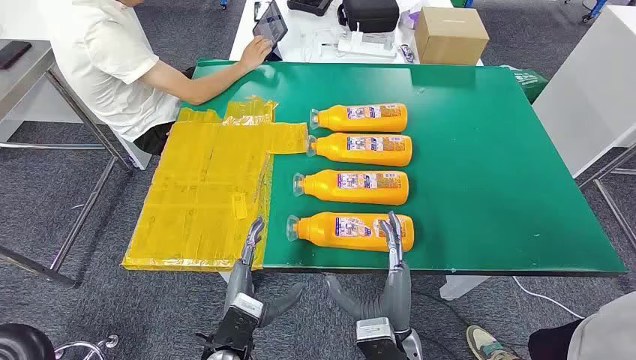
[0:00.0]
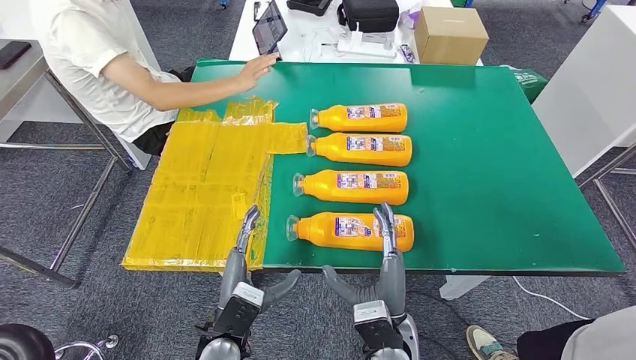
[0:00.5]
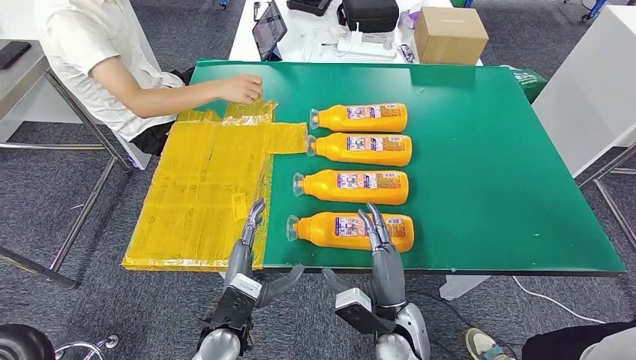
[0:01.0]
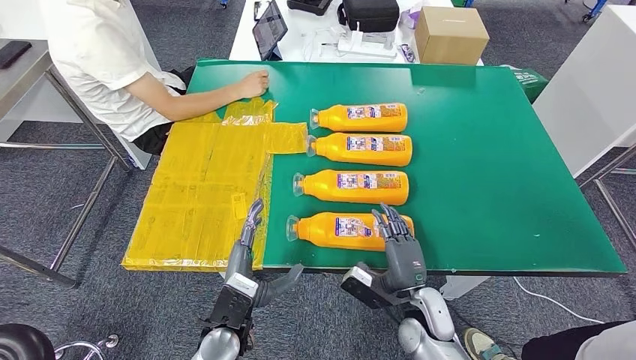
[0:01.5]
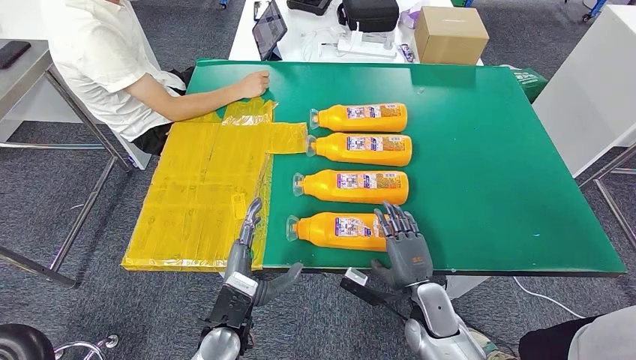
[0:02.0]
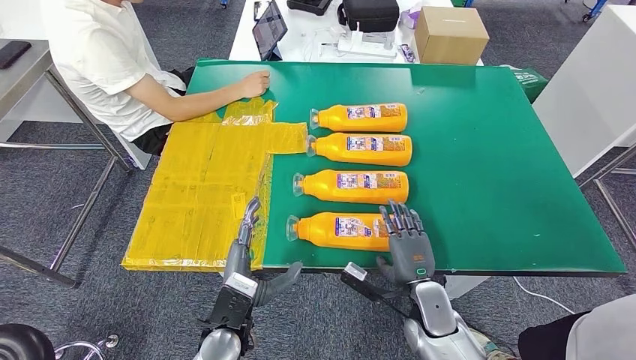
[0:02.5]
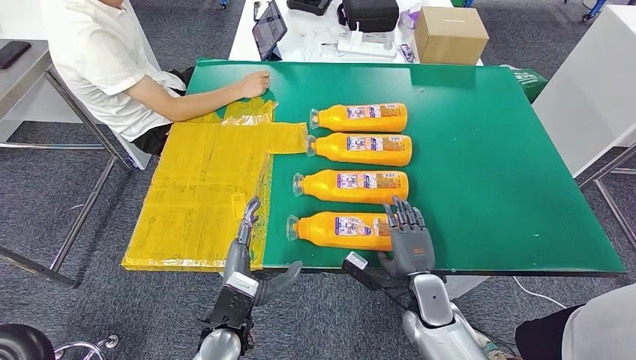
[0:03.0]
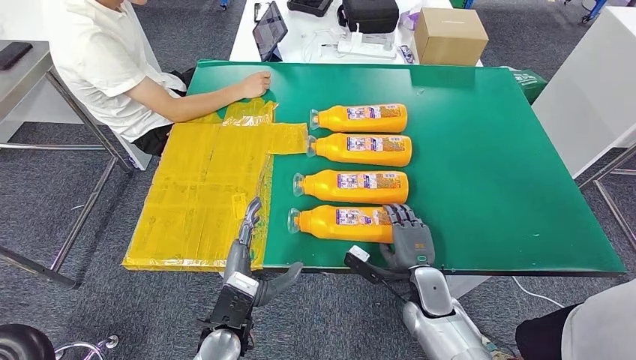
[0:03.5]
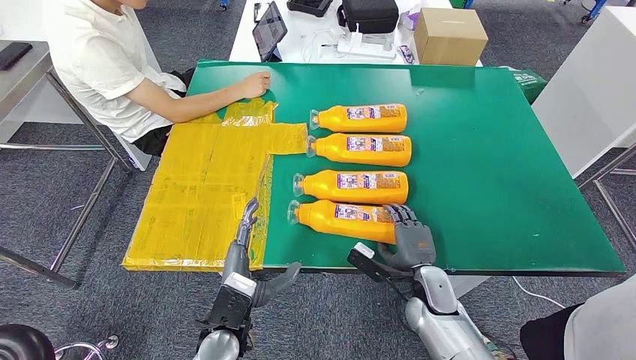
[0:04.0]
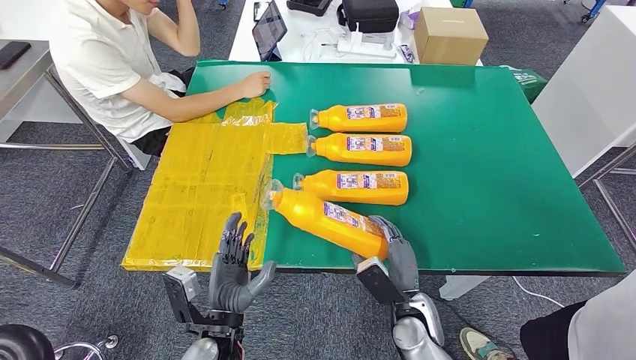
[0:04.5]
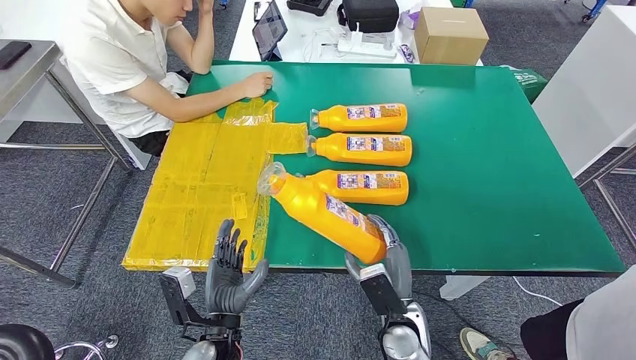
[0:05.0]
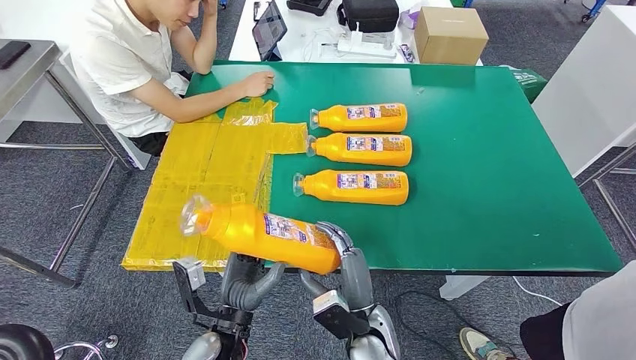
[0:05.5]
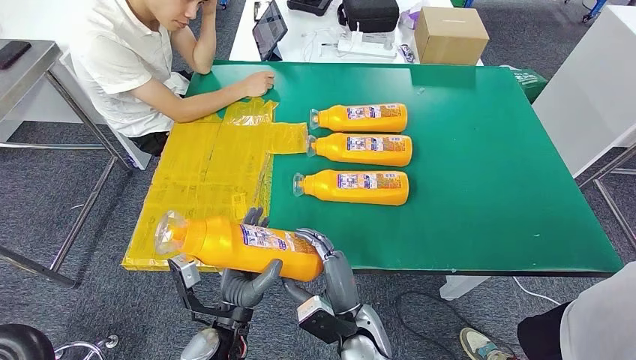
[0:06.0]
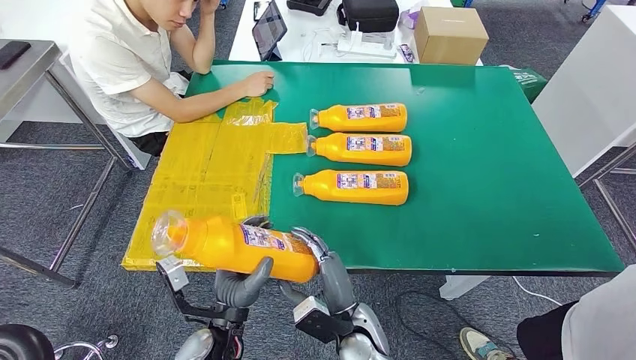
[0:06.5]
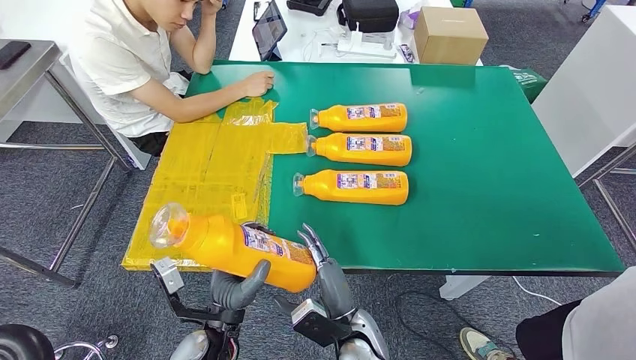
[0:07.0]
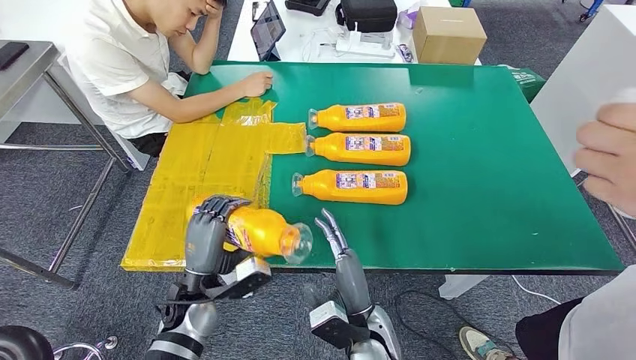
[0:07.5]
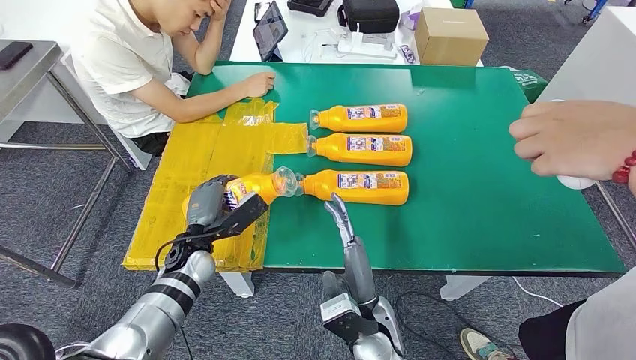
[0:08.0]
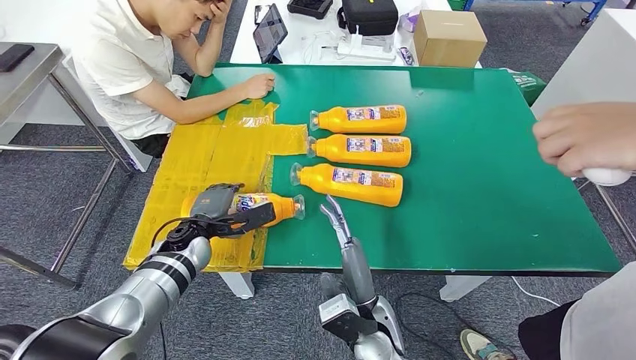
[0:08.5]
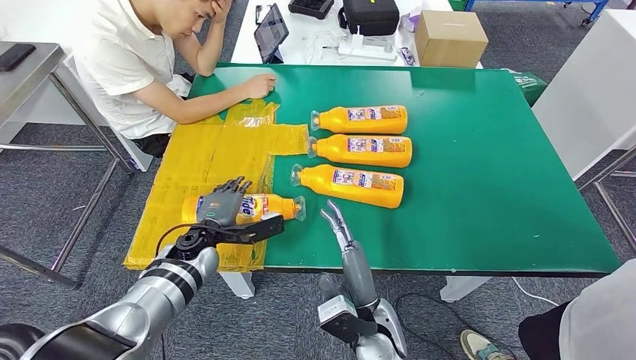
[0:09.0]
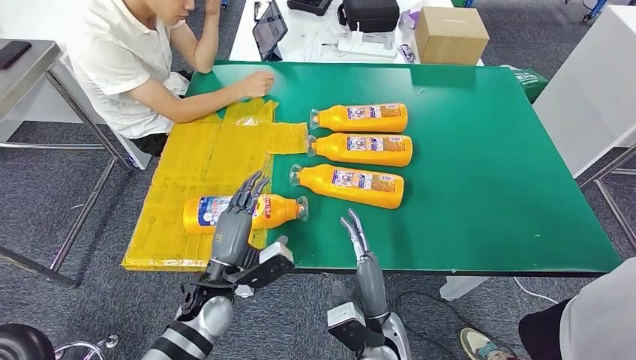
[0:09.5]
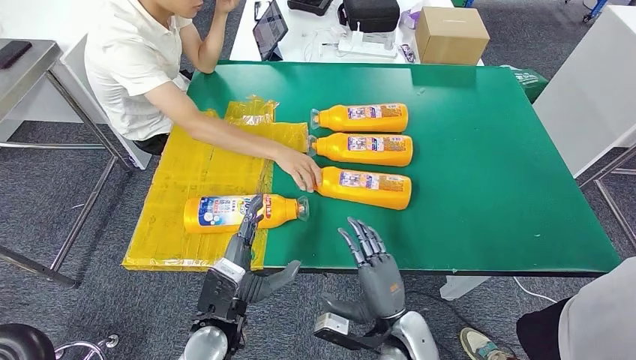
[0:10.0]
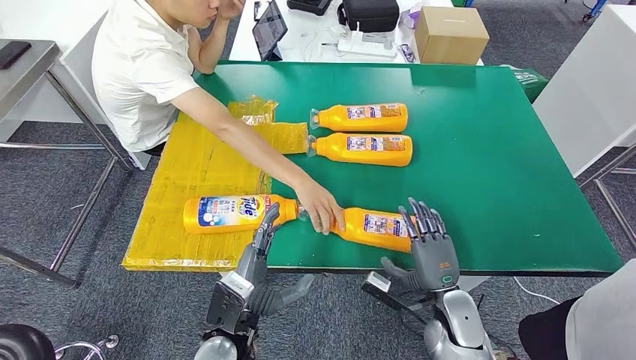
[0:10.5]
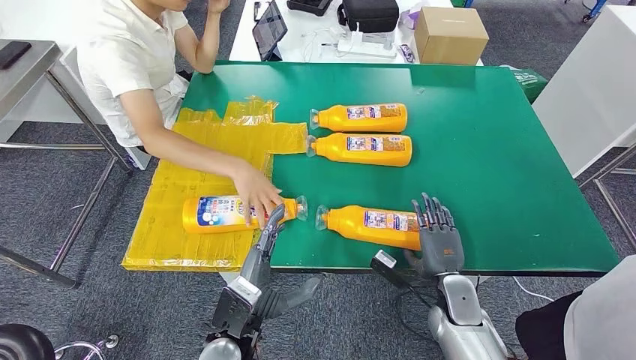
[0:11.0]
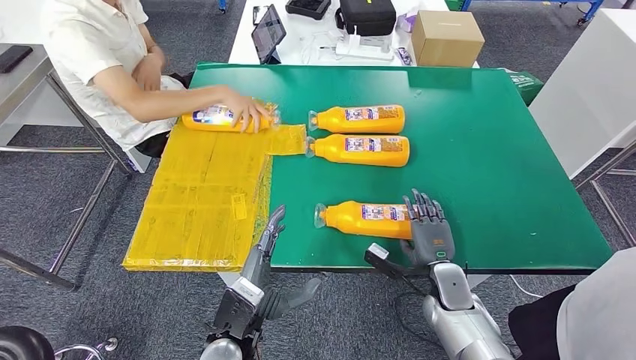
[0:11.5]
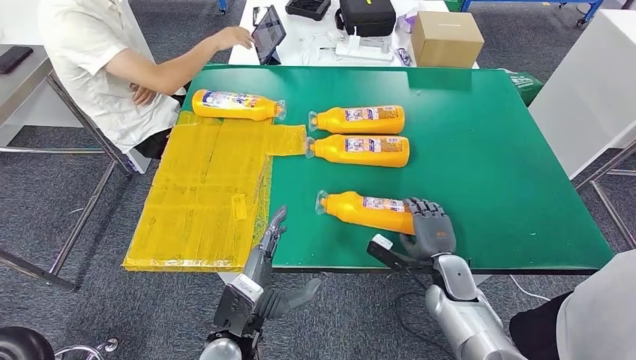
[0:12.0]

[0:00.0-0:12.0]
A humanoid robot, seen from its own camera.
Step, 0:00.0 to 0:07.0: Take the fast-moving consumer goods bottle from the table.
Step, 0:07.5 to 0:10.5: Flip the fast-moving consumer goods bottle to the front side.
0:02.0 to 0:04.0: There are only small adjustments of the hands.
0:04.0 to 0:06.0: The right hand shifts roughly 15 cm to the left and backward.
0:06.0 to 0:08.0: The left hand travels forward and to the left by some 15 cm.

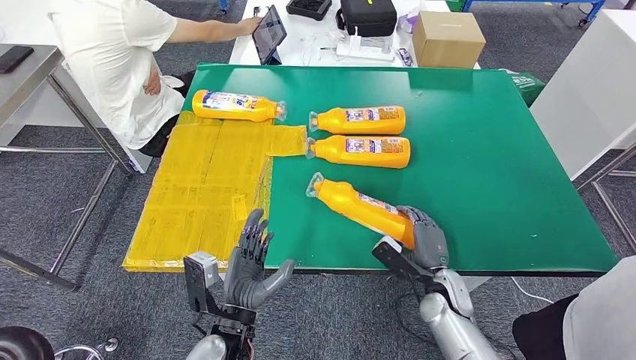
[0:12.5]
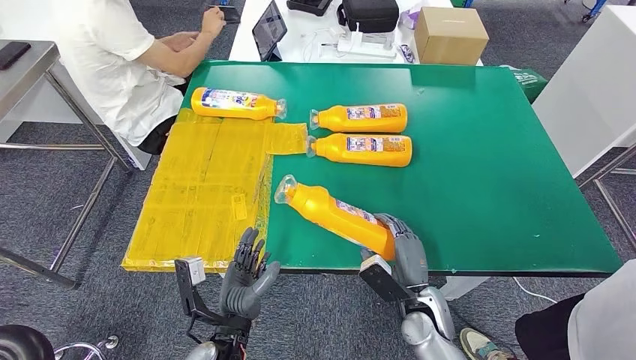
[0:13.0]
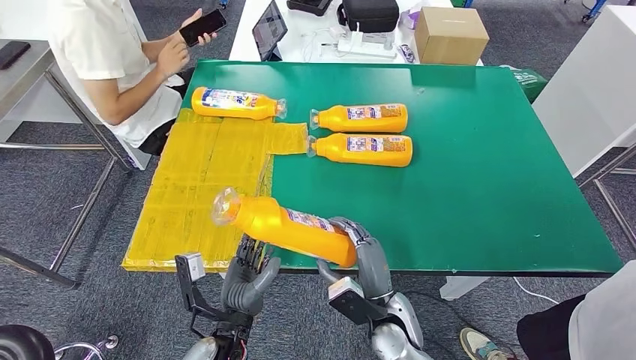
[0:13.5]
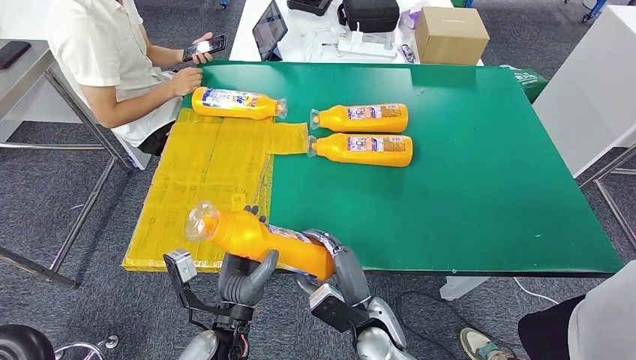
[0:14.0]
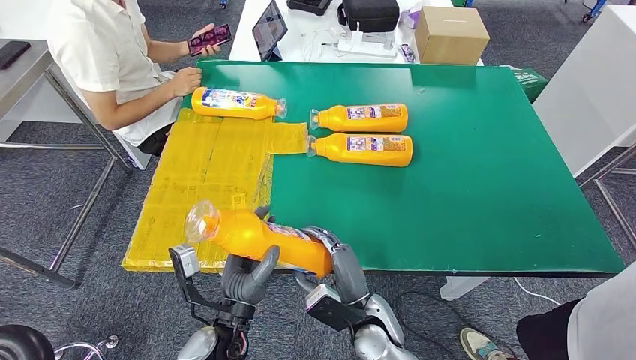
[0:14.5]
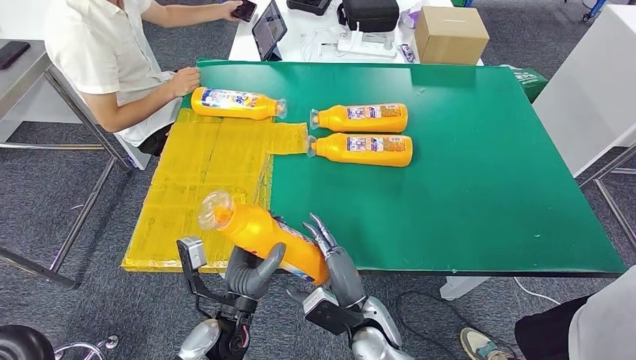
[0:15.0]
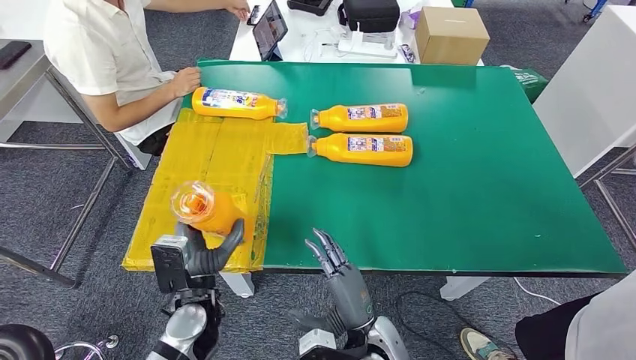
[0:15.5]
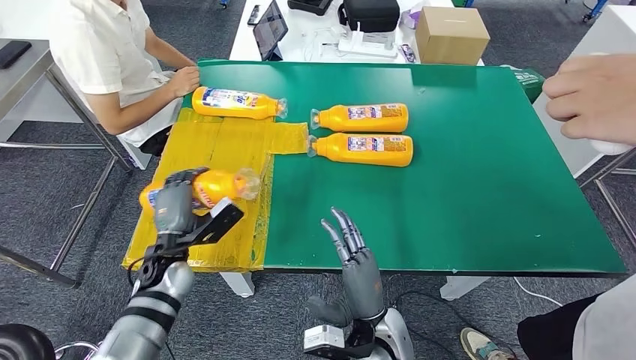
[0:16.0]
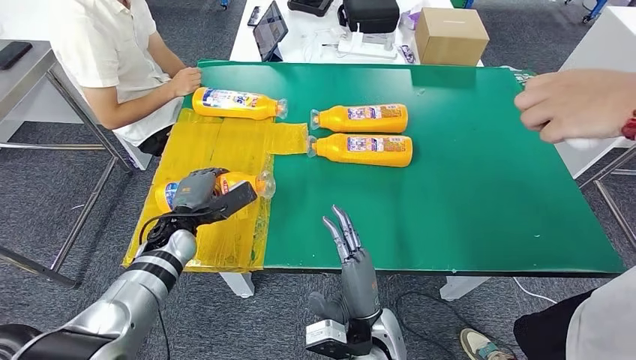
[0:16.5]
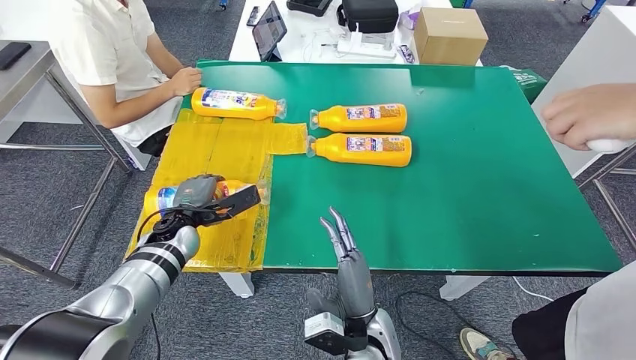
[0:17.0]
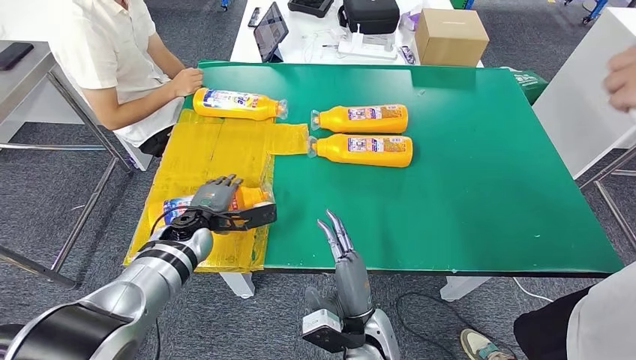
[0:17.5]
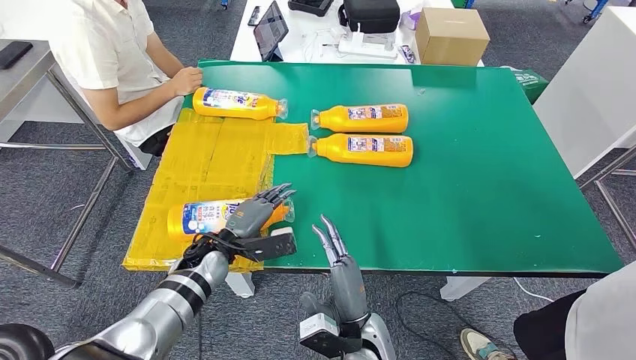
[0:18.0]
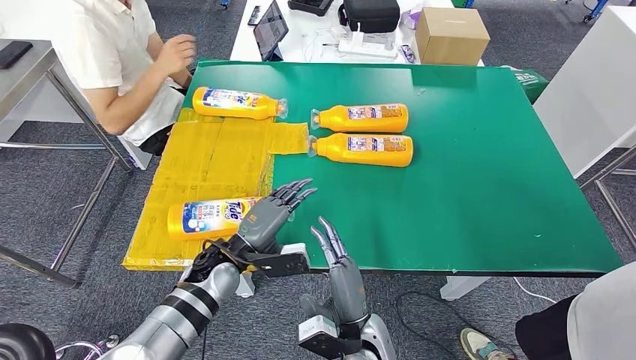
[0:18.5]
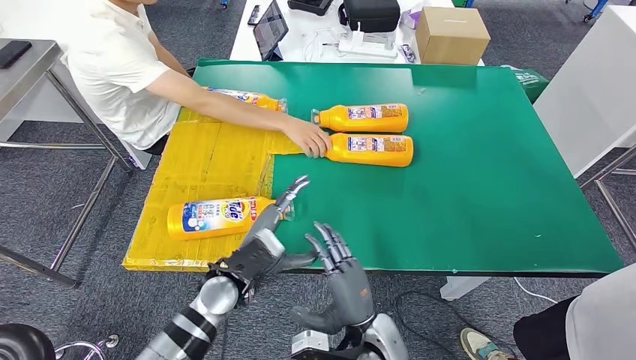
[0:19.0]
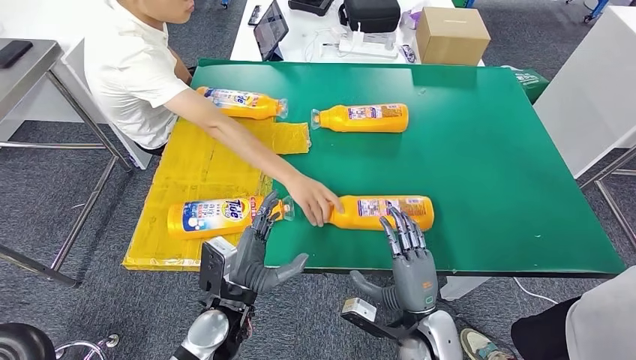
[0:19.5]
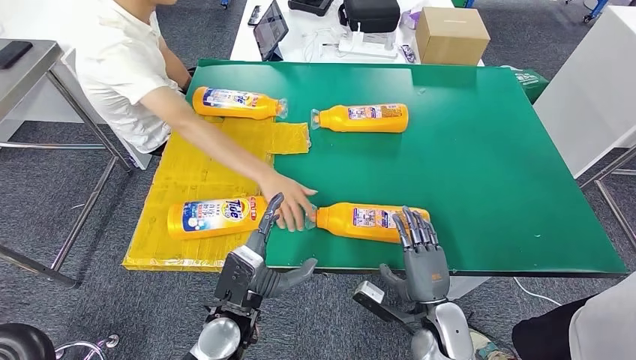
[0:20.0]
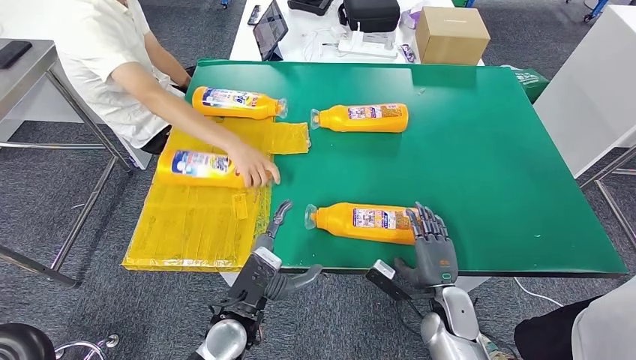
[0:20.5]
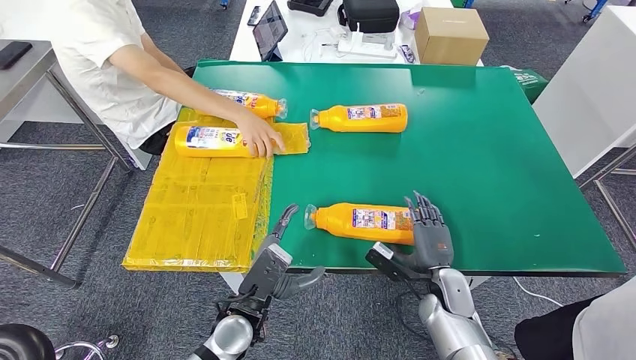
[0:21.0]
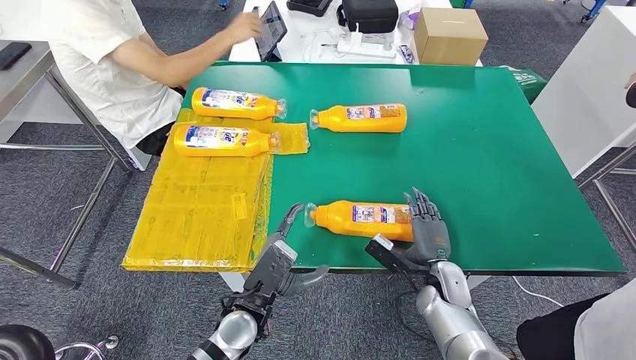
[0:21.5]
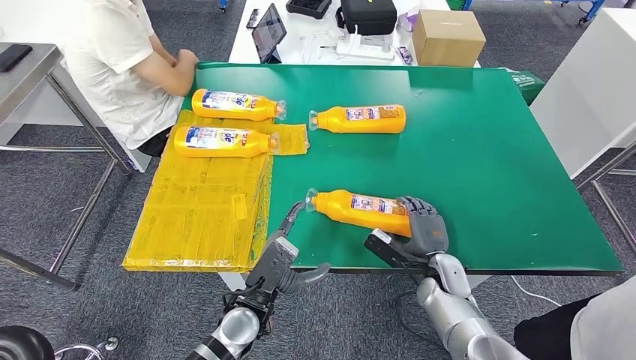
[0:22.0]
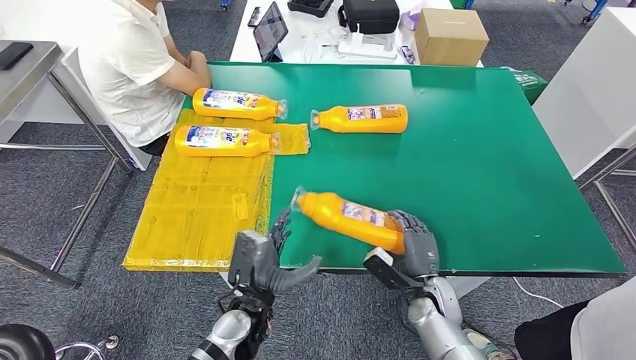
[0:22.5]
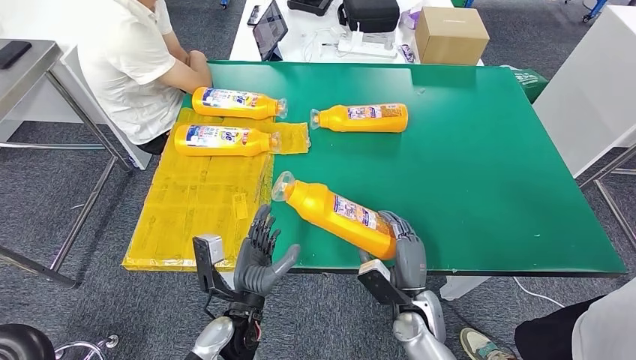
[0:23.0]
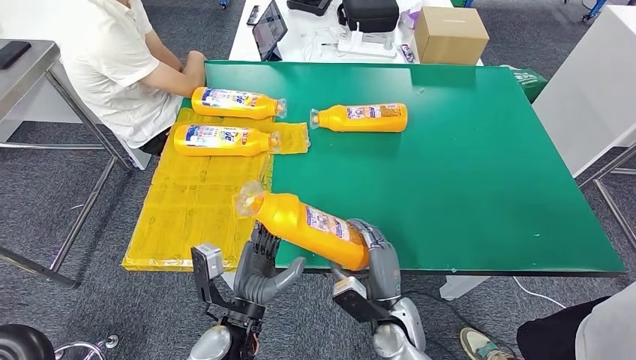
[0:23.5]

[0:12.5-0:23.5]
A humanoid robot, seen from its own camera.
Step, 0:12.5 to 0:14.5: Pick up the fast-moving consumer goods bottle from the table.
Step, 0:15.0 to 0:17.0: Flip the fast-moving consumer goods bottle to the front side.
0:14.5 to 0:16.0: The left hand heads to the left and forward, covering some 20 cm.
0:16.0 to 0:18.0: The left hand goes about 5 cm to the right.
0:20.0 to 0:21.5: The right hand heads forward, covering about 10 cm.
0:21.5 to 0:23.5: The right hand shifts some 15 cm to the left and backward.
